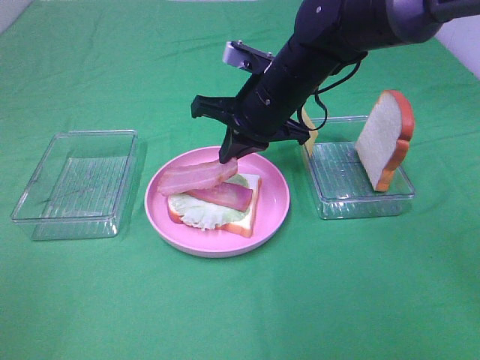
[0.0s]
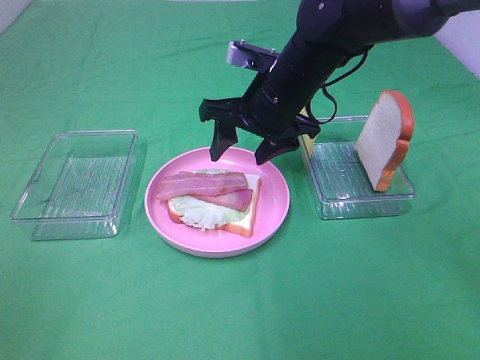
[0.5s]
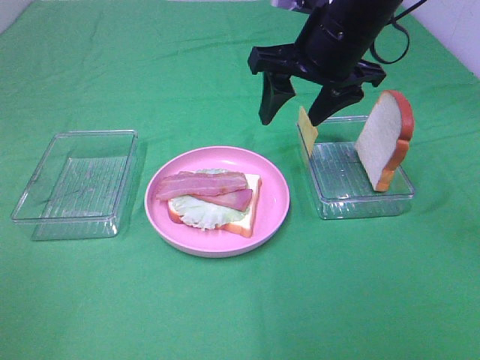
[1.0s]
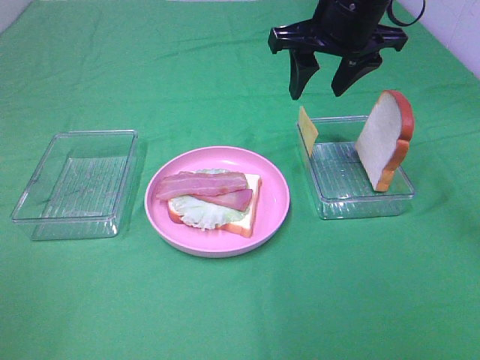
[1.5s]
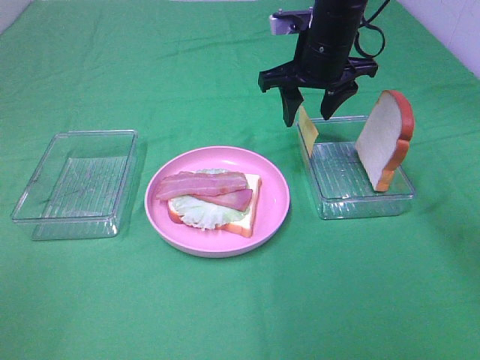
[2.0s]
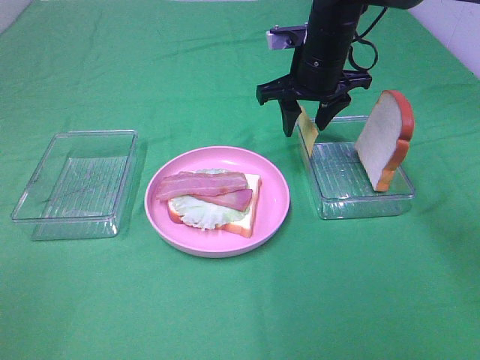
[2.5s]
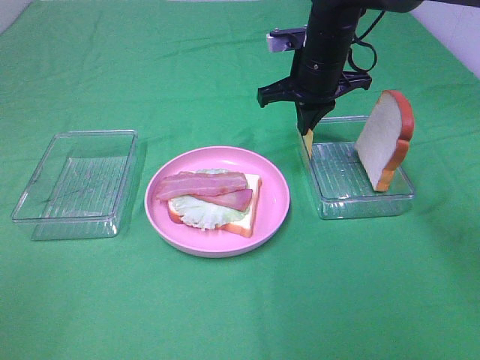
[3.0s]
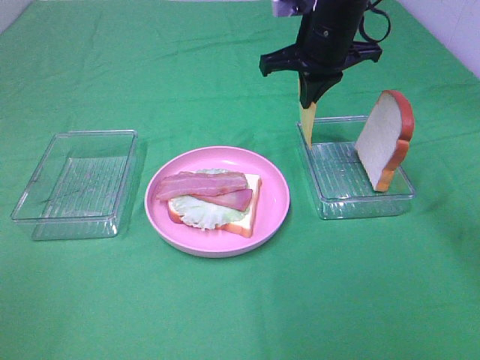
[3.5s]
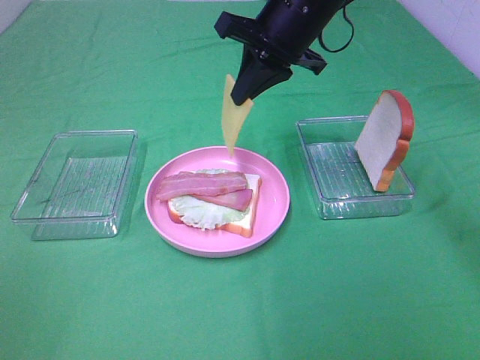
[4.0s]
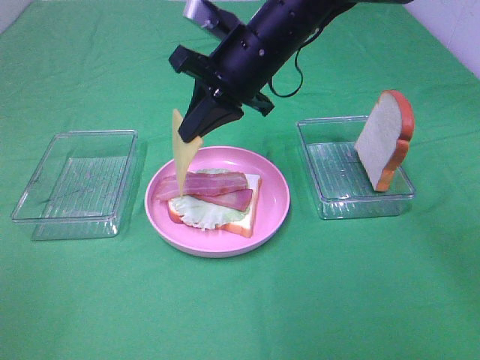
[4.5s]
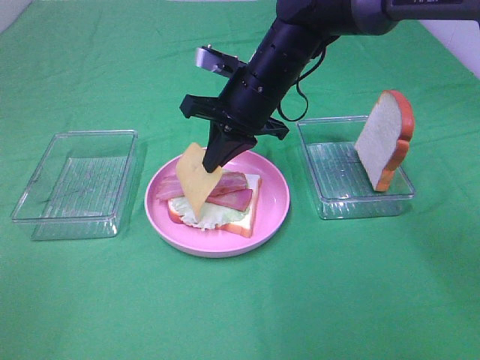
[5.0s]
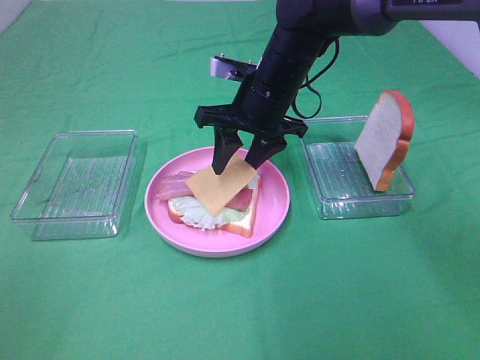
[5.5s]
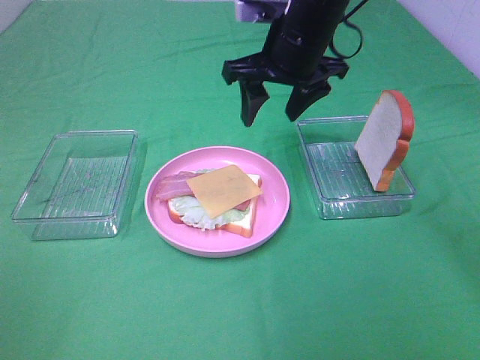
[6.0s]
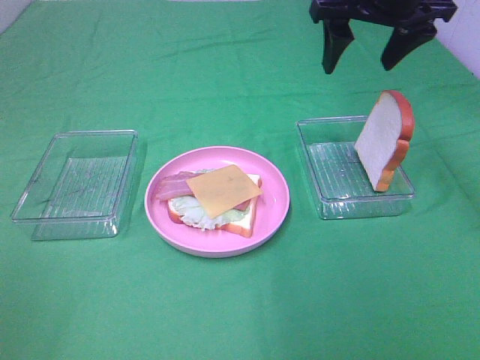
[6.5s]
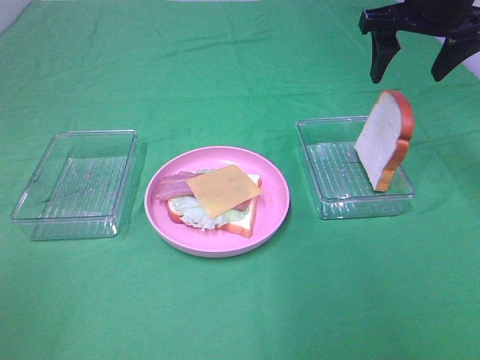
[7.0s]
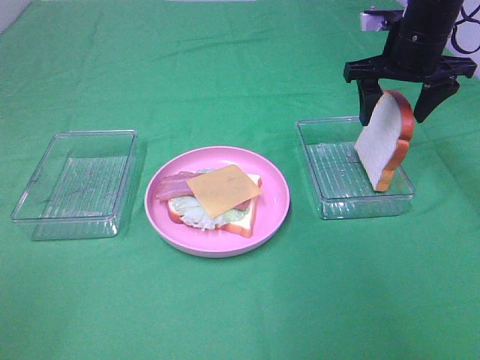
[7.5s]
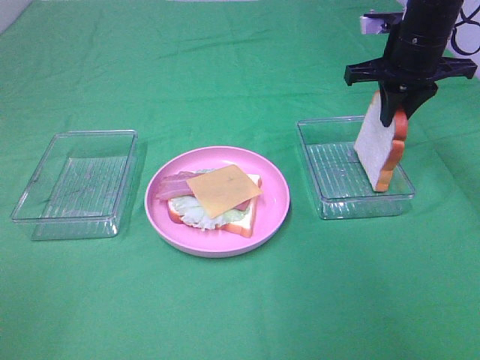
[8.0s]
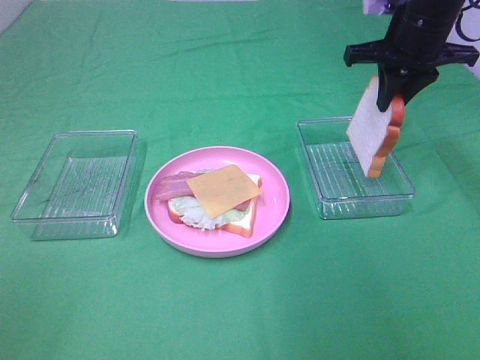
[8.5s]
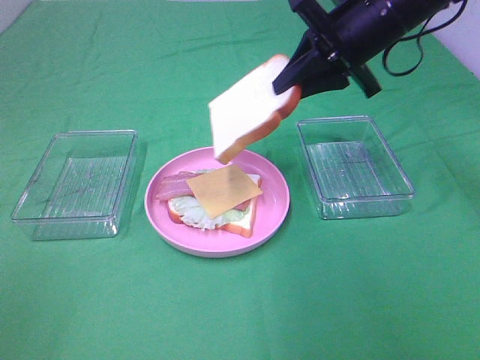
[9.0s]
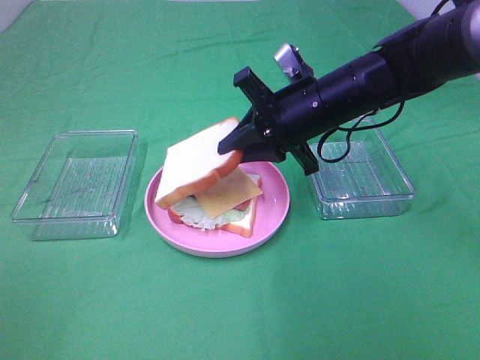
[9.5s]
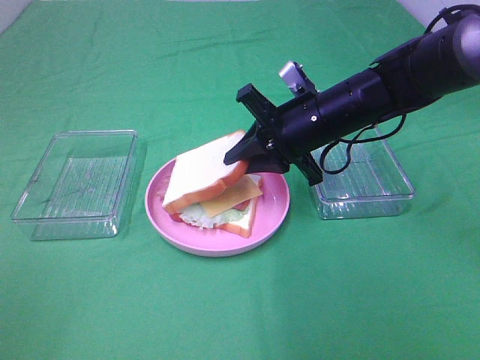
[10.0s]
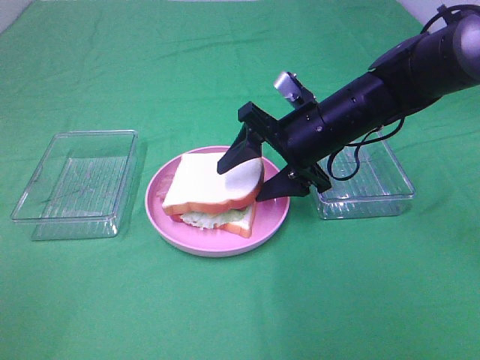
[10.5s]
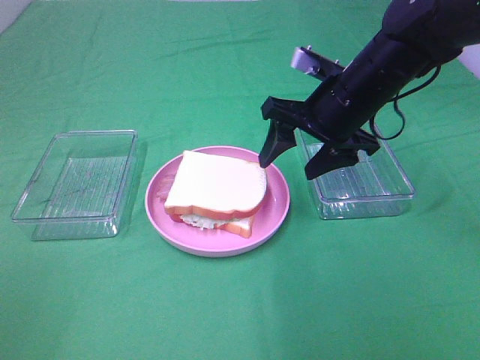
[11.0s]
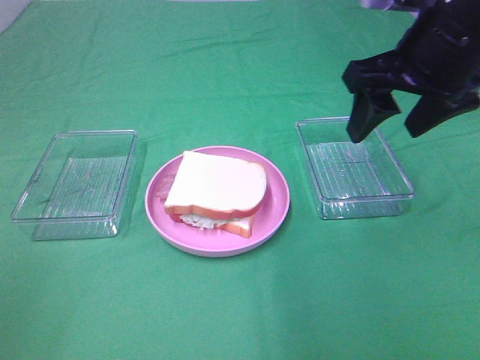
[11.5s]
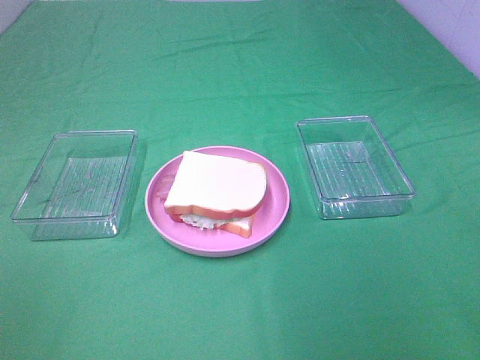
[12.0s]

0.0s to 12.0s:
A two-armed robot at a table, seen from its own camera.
Task of the whole recording: Make sandwiches.
Step, 0.5s to 3.0s: Right hand:grab the cheese slice.
Step, 3.5s to 5.5s: Right hand:place the cheese slice on top of the bacon.
Step, 6.0s to 8.0s: Right hand:grab the bread slice.
Step, 8.5s to 10.5s: Right hand:place the bread slice on the cheese slice.
0.0s to 2.0s: The right gripper travels forward and to the right by about 10 cm, goes upward and returns, about 10 cm each way, and opens up.
2.0s to 4.0s: The right gripper heads upward, covering about 5 cm, and closes up.
4.0s to 6.0s: The right gripper goes downward and returns, some 10 cm each way, and opens its fingers.
6.0s to 8.0s: The right gripper moves to the right, approximately 15 cm, and closes up.
8.0s to 10.0s: The right gripper heads to the left, backward and downward, covering approximately 15 cm.
10.0s to 12.0s: The right gripper travels backward, upward and to the right by roughly 35 cm, and opens up.

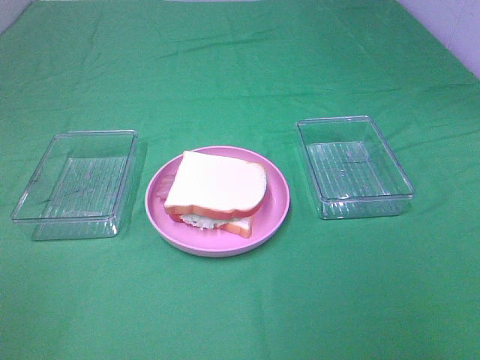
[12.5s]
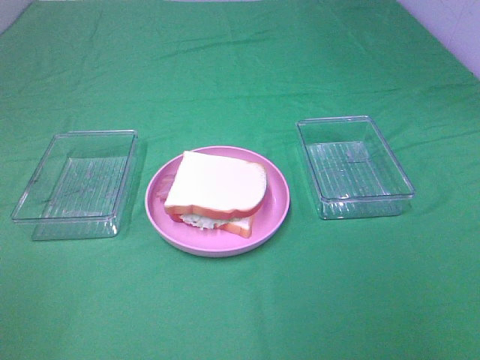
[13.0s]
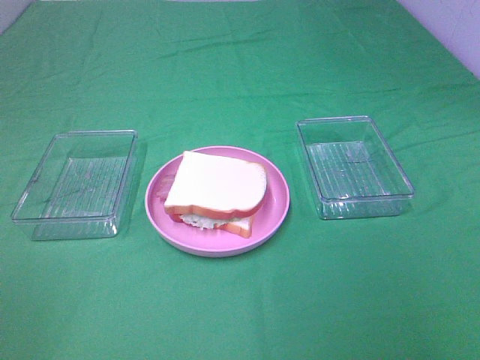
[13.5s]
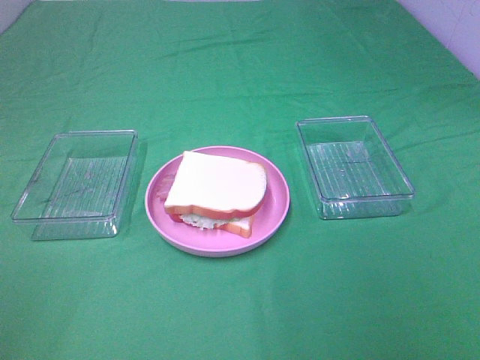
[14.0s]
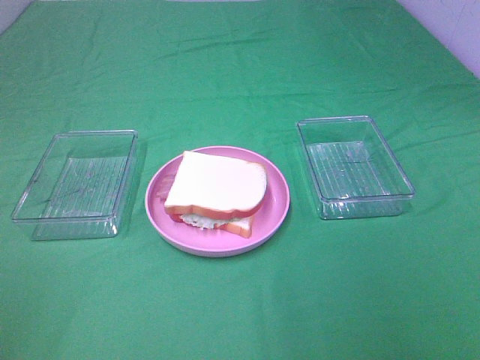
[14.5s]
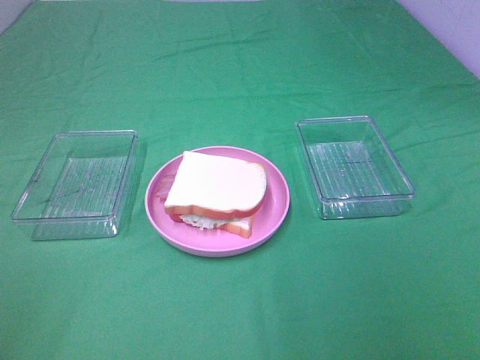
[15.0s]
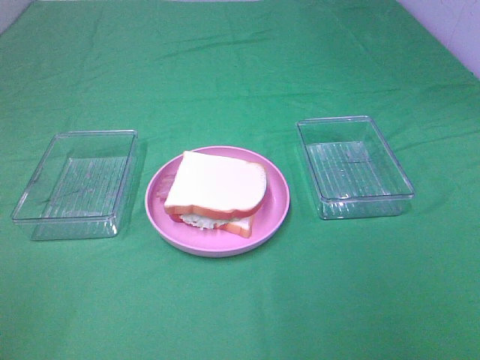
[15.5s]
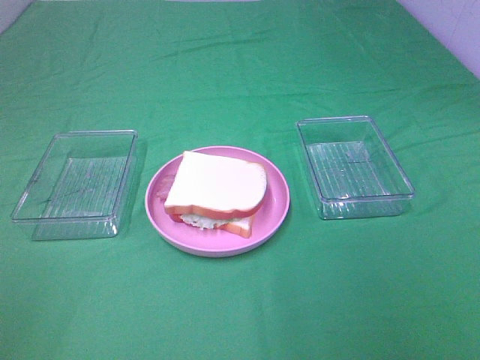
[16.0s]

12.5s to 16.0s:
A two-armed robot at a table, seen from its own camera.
Task of the whole recording: Make sandwiches.
14.5s to 16.0s: Both grippers stay put.

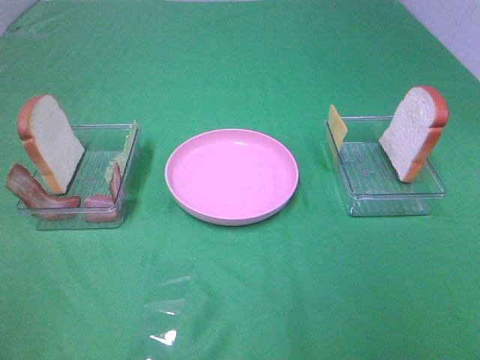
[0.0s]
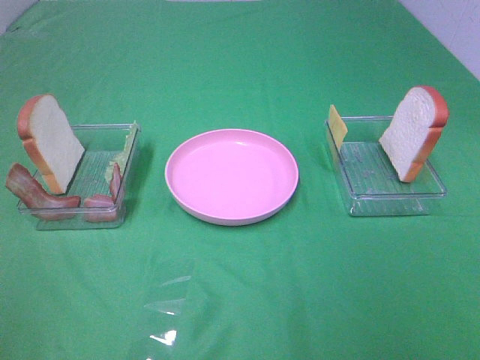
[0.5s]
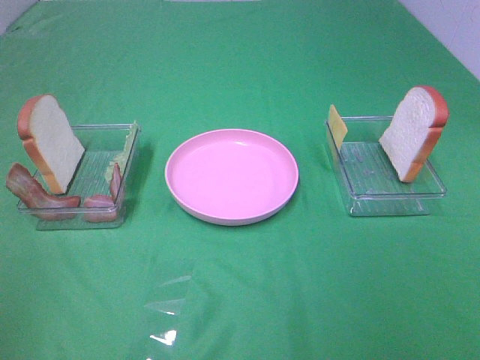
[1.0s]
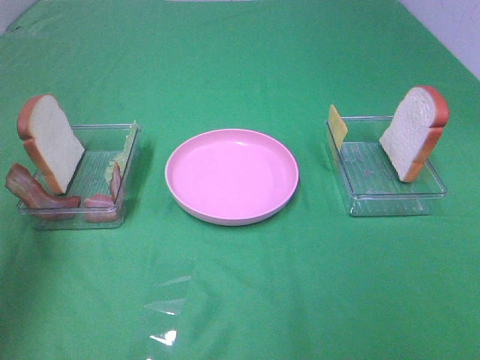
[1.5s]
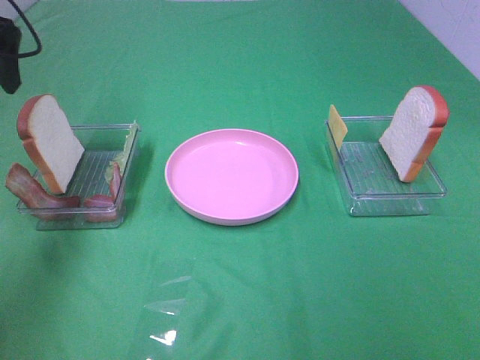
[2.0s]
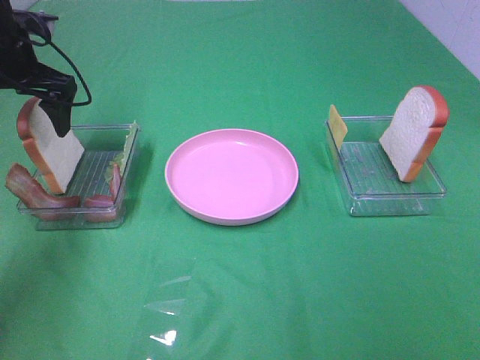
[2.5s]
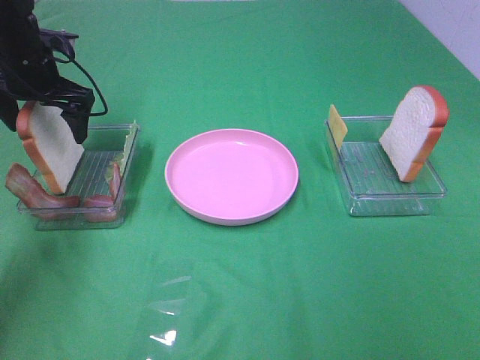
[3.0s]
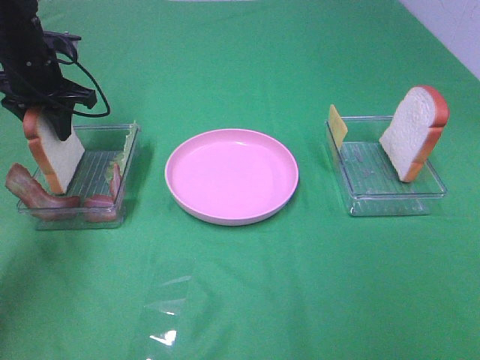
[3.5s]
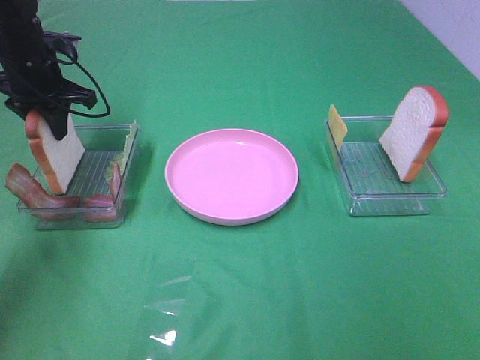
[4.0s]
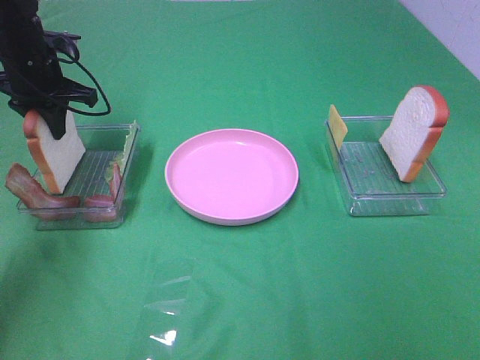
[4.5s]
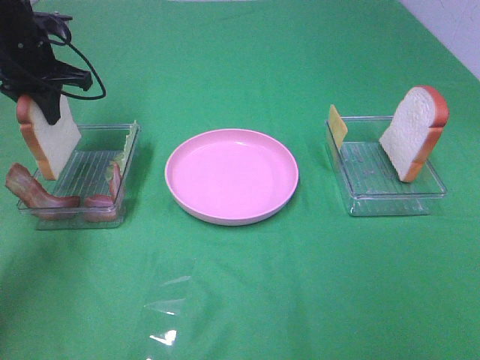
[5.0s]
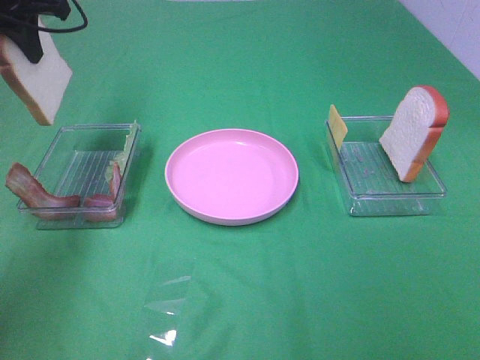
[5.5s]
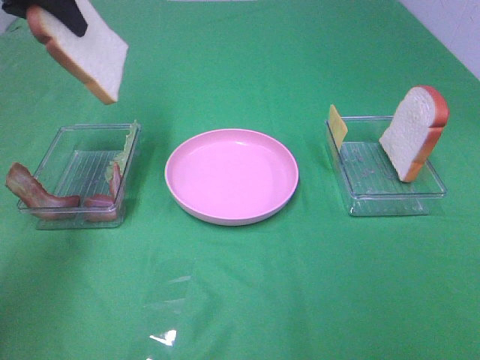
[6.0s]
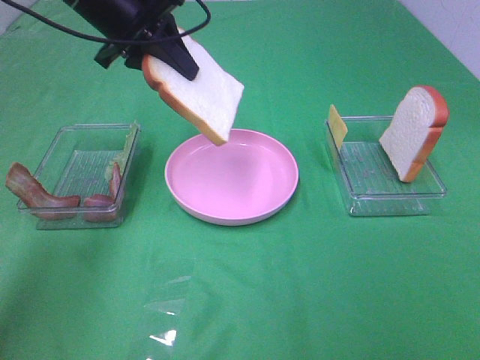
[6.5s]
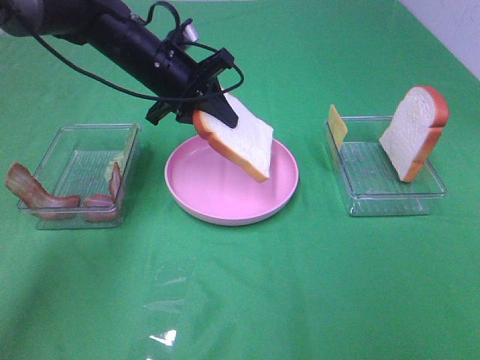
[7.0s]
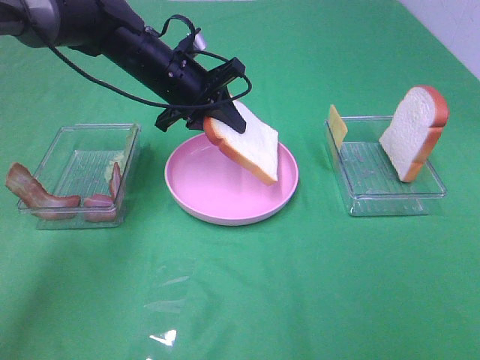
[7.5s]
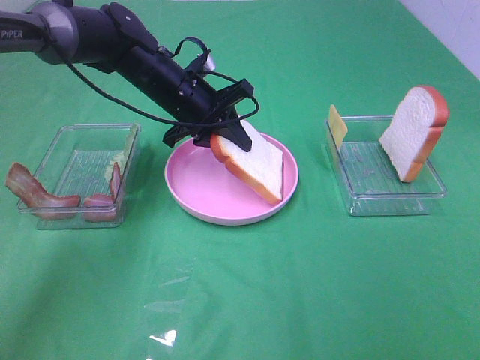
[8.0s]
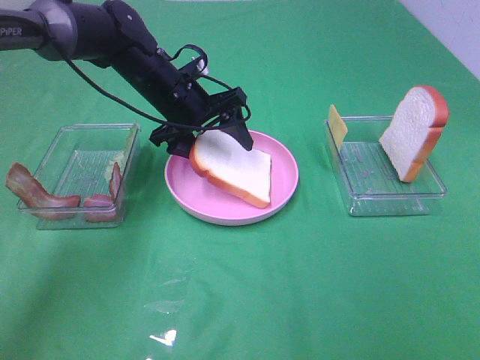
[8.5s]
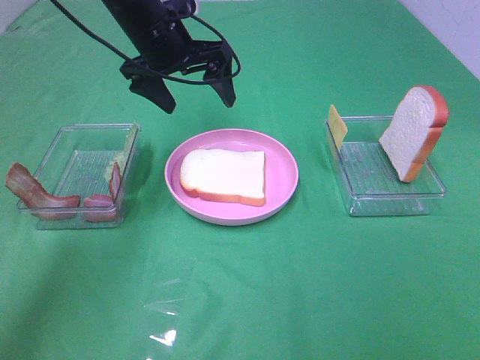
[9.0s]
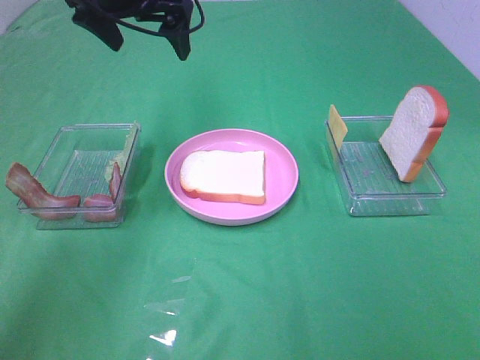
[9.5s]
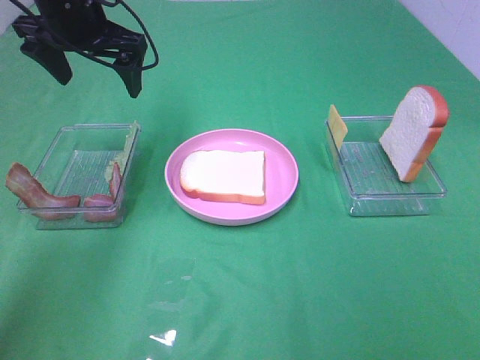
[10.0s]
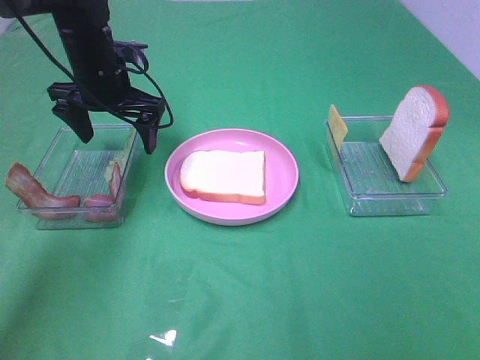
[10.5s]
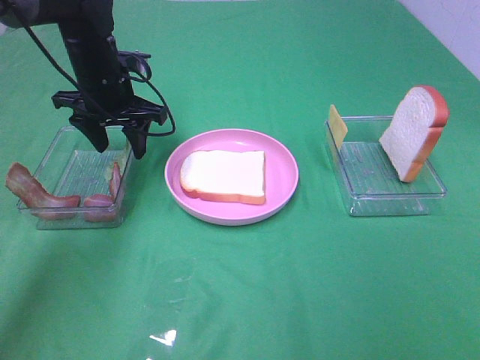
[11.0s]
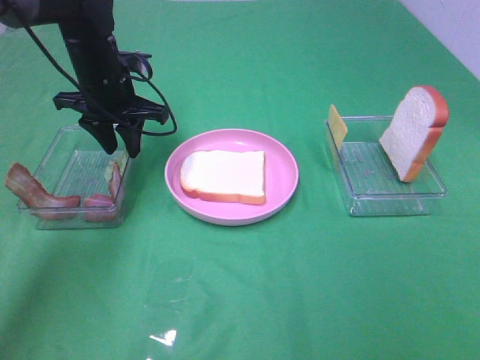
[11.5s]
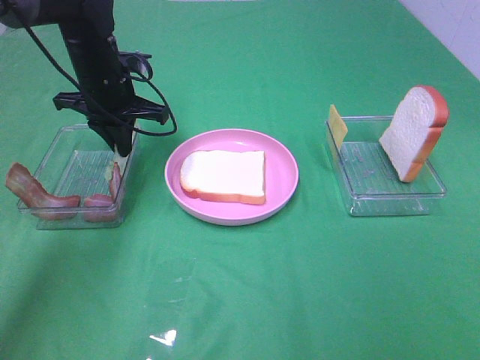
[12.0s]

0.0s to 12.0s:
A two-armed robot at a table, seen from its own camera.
Task of the whole recording: Make sandwiches.
Step, 0.0s to 4.0s: Left hand:grab the bread slice.
Step, 4.5s to 9.0s: Left hand:place the bread slice on the plate.
Step, 9.5s to 12.0s: Left hand:grab the lettuce slice.
0.0s to 2.0s: The left gripper moves forward, about 40 cm.
2.0s to 4.0s: The left gripper shifts roughly 15 cm downward and forward, and closes up.
4.0s to 6.0s: The left gripper moves upward, some 15 cm.
6.0s to 8.0s: The left gripper heads downward and to the right, covering approximately 25 cm.
8.0s to 10.0s: The left gripper moves upward and to the left, roughly 15 cm, and opens its fingers.
10.0s to 12.0s: The left gripper shifts approximately 10 cm downward, and closes.
